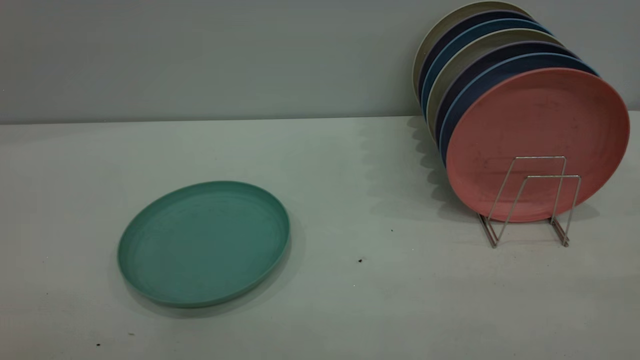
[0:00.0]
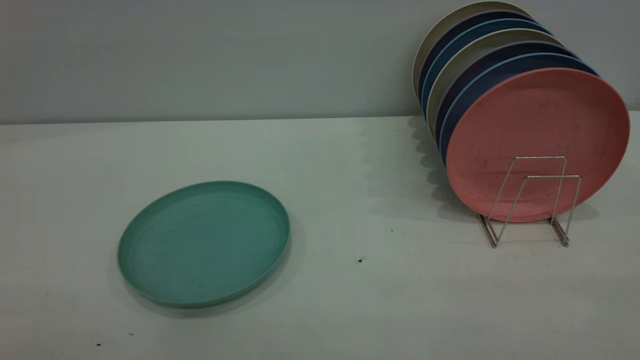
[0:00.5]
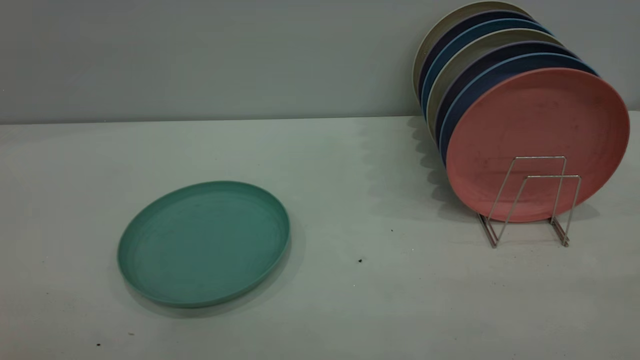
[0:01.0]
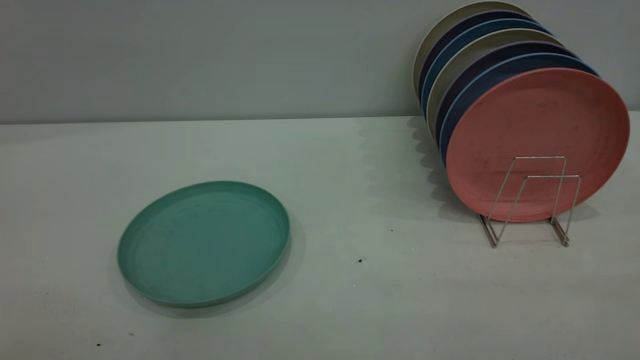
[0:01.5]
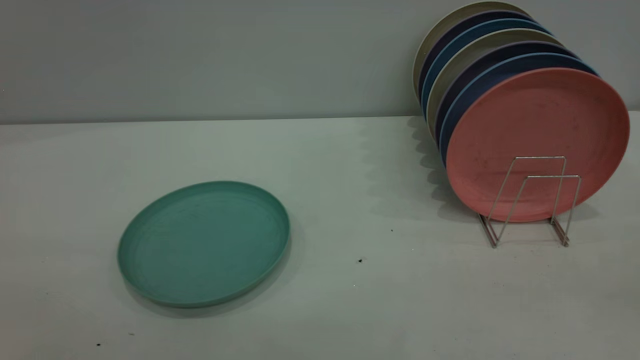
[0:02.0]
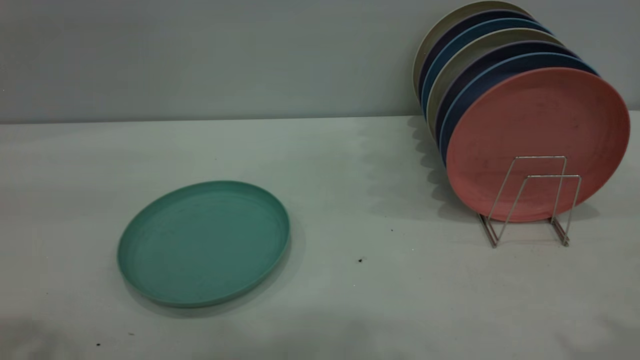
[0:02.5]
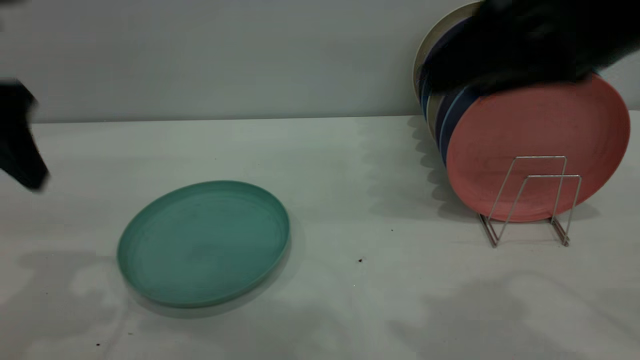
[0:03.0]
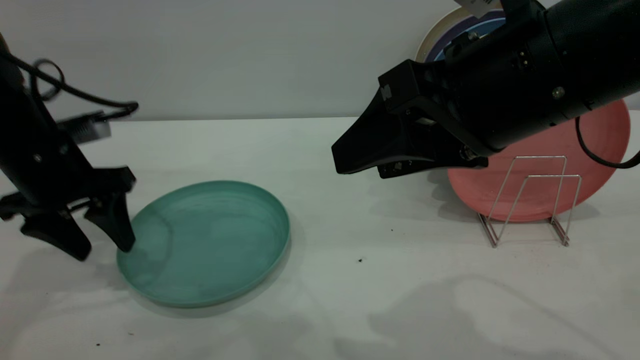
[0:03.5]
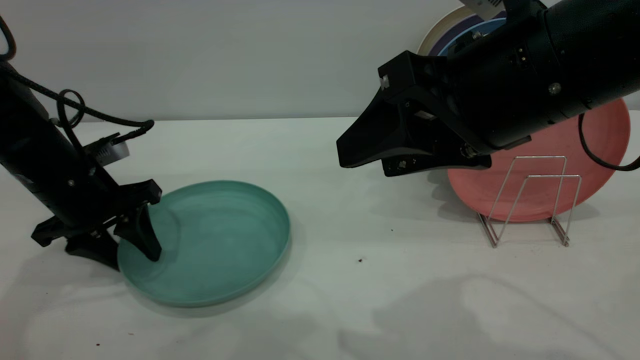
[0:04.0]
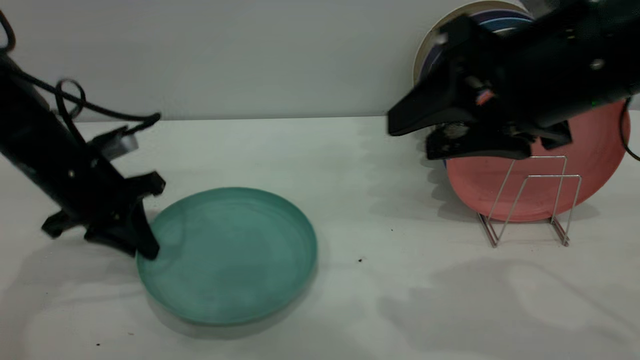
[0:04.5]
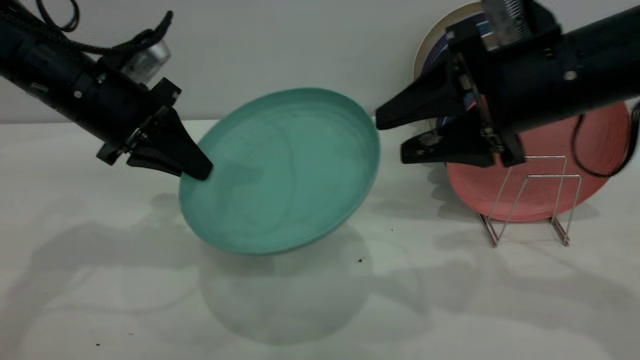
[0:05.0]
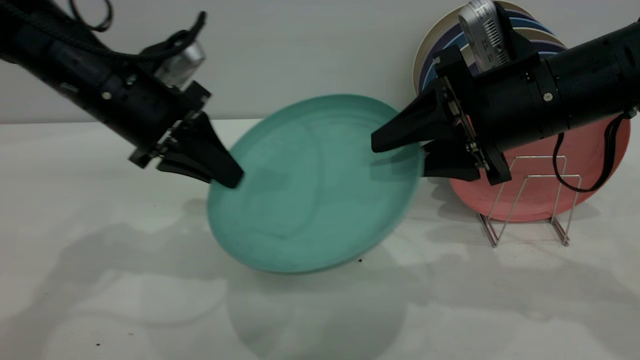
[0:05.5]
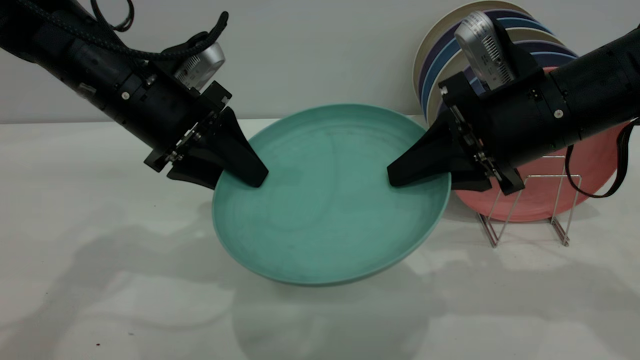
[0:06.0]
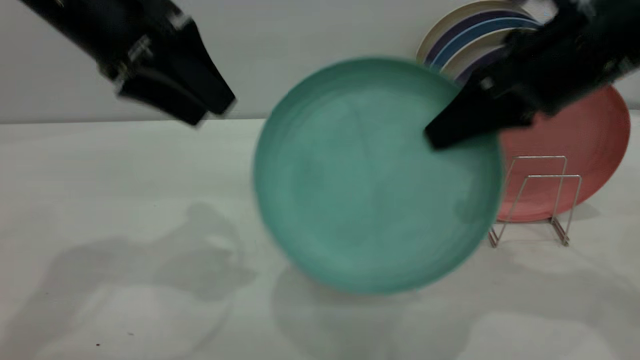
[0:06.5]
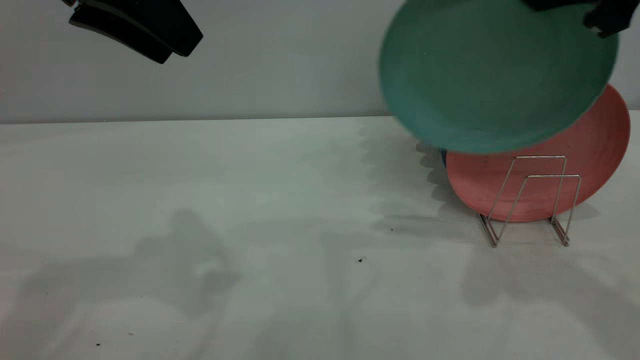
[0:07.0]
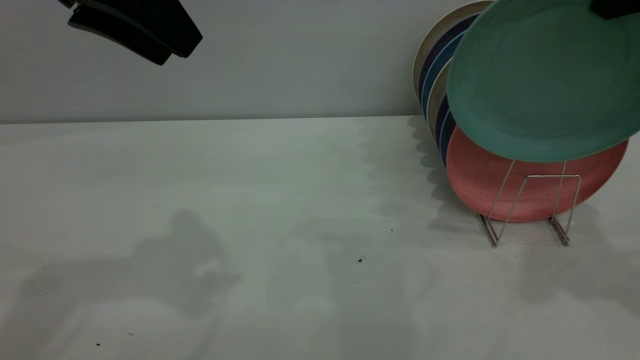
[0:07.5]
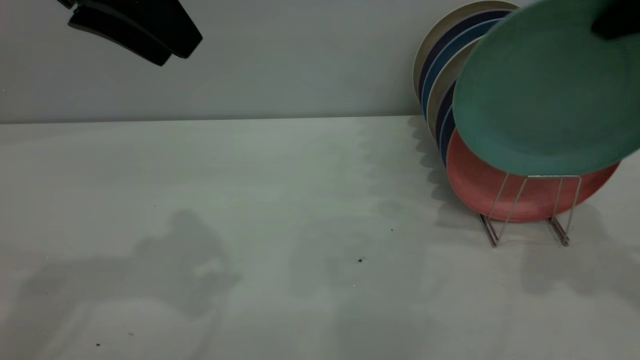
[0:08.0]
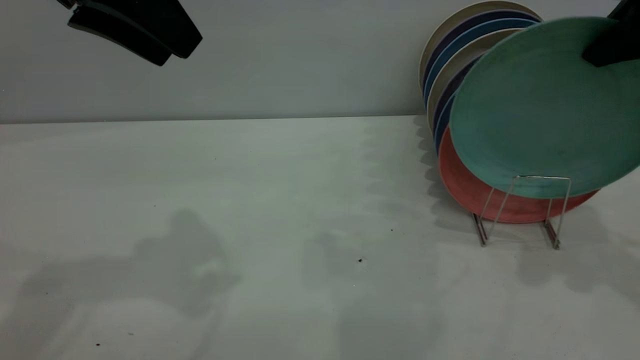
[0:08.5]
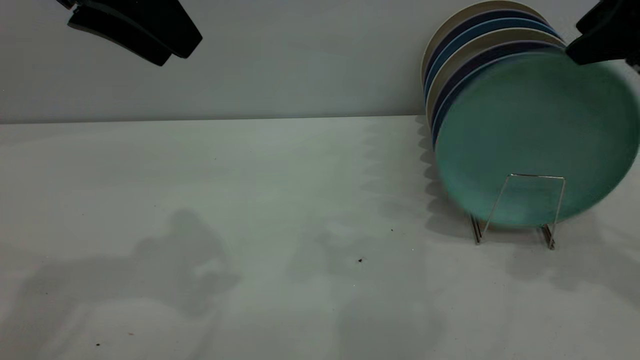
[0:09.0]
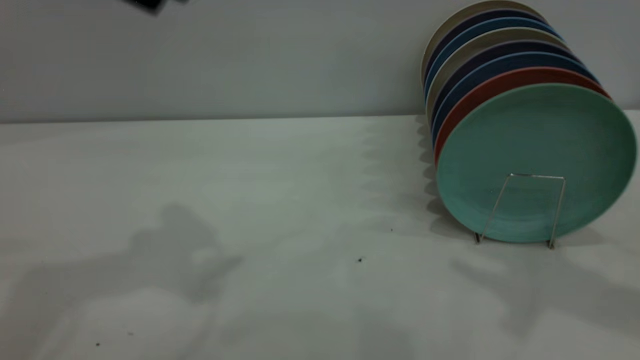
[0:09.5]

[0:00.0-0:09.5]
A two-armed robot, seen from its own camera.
Task of the whole recording: the left gripper grasp the green plate, the left gripper pass the green plate to the right gripper, and the right gripper place the green plate on the plate rack.
Step, 0:00.0 to 0:04.5: Pick up the plate with the left gripper.
Step, 0:05.0 to 0:06.5: Pass the plate from the left gripper to the right gripper.
Step, 0:07.0 to 0:09.0: Place the plate on the shelf.
0:02.0 to 0:04.0: The right gripper shifts about 30 cm forward, to the left and downward, while the left gripper moves forward and downward, roughly 50 cm.
0:04.0 to 0:05.5: The right gripper is displaced forward and downward by approximately 10 cm, and closes its fingers. The left gripper moves to the right and upward, some 10 cm, and closes its fingers.
0:05.5 to 0:07.5: The right gripper shifts about 20 cm upward and to the right, and closes, while the left gripper heads upward, covering approximately 15 cm, and opens.
0:07.5 to 0:09.5: The right gripper changes place by some 5 cm, and opens up. The left gripper goes approximately 5 cm upward.

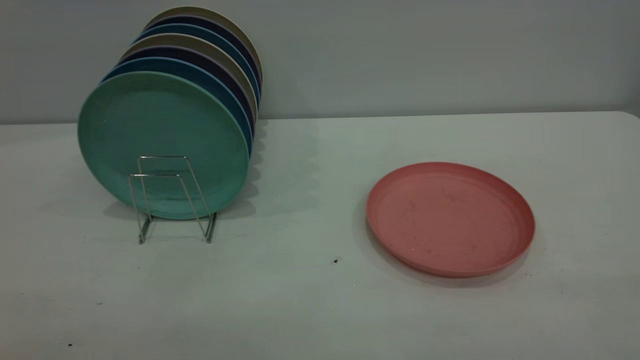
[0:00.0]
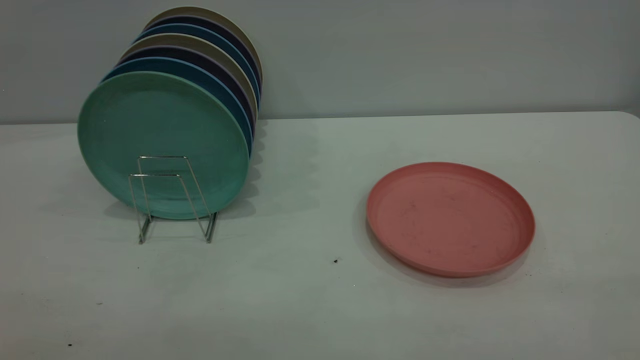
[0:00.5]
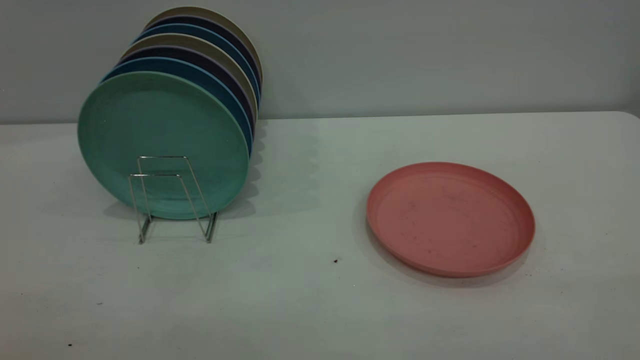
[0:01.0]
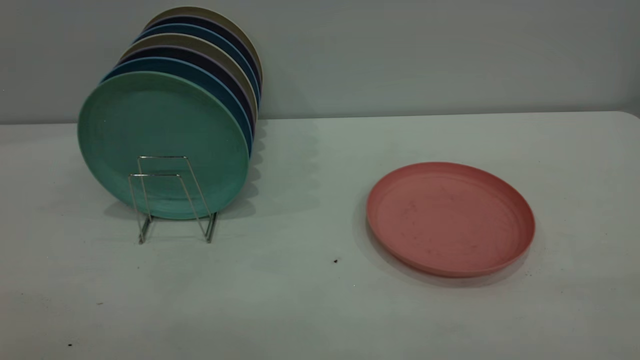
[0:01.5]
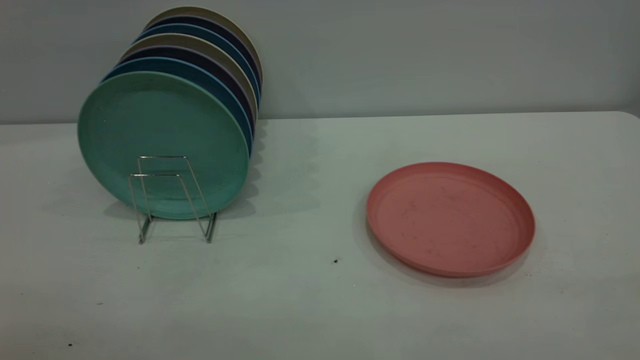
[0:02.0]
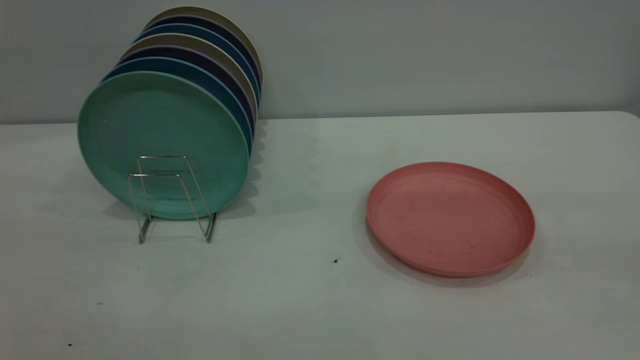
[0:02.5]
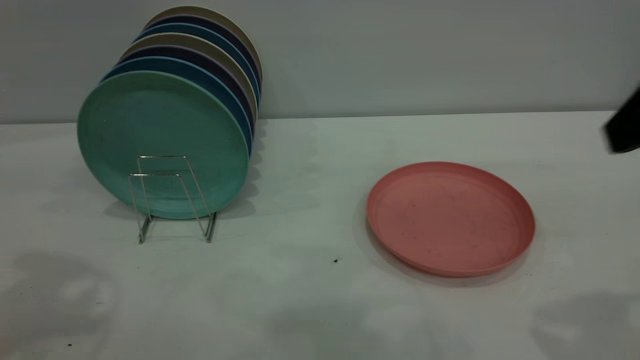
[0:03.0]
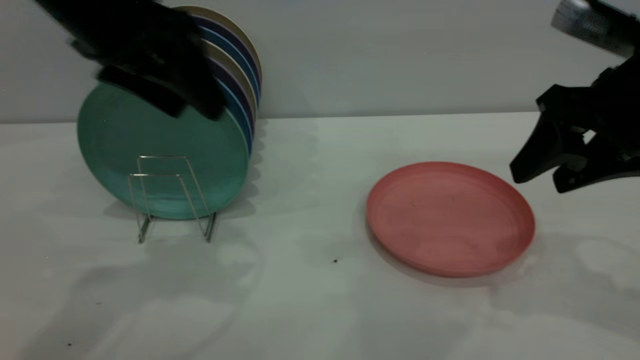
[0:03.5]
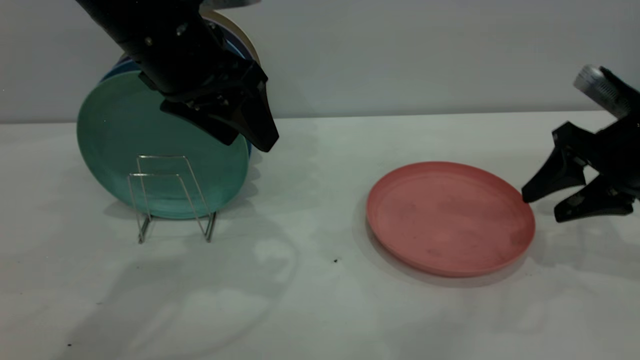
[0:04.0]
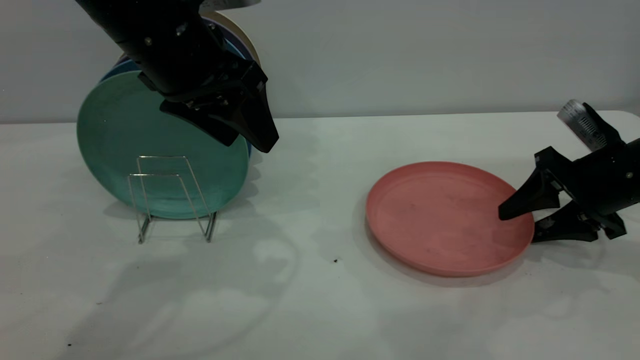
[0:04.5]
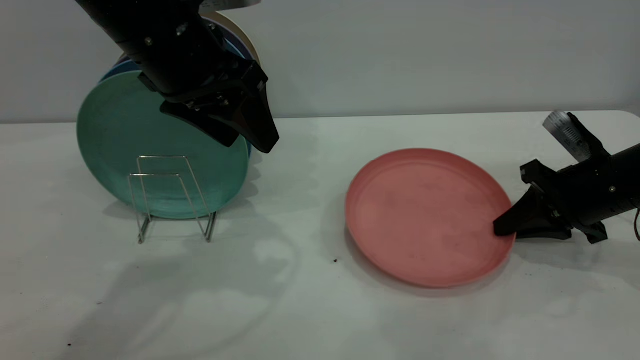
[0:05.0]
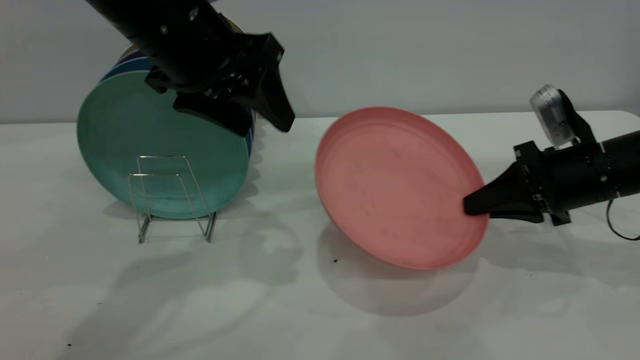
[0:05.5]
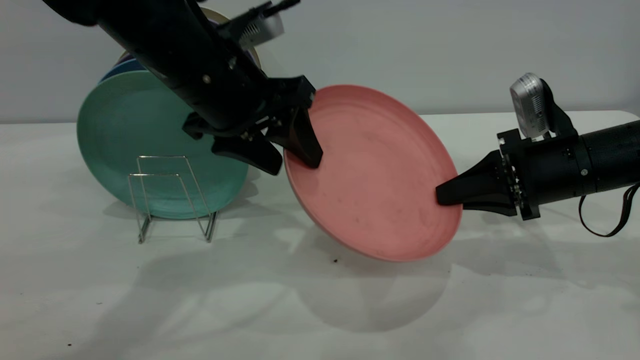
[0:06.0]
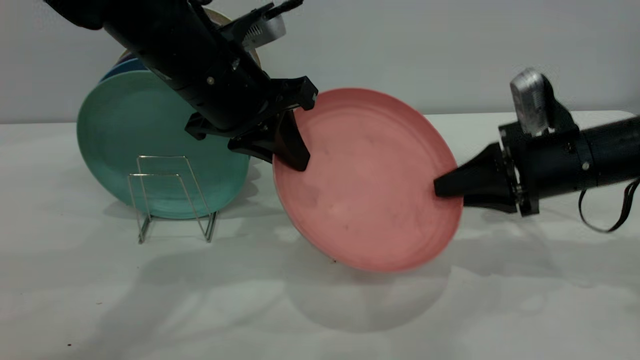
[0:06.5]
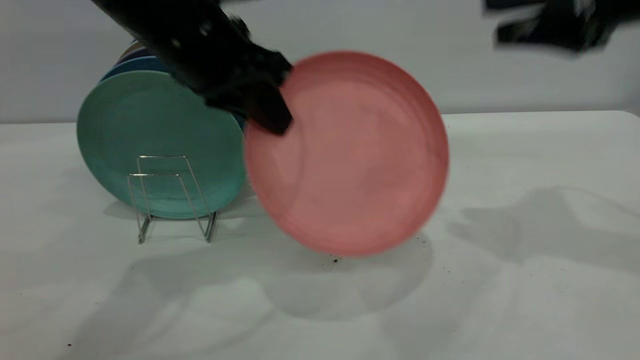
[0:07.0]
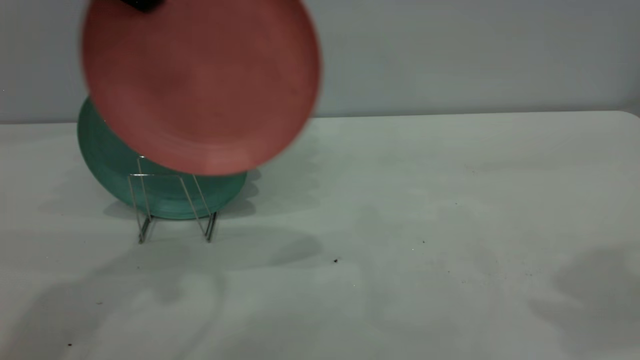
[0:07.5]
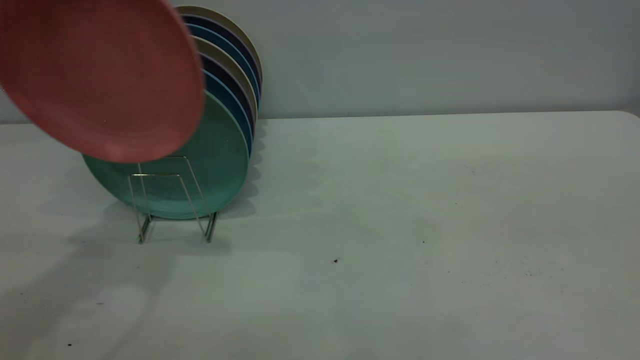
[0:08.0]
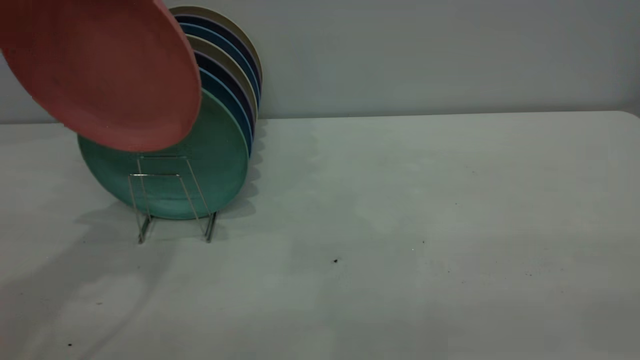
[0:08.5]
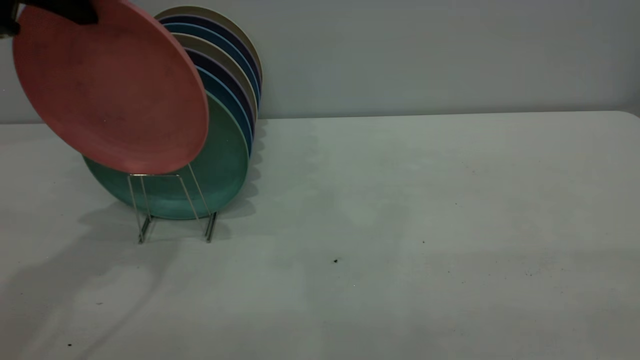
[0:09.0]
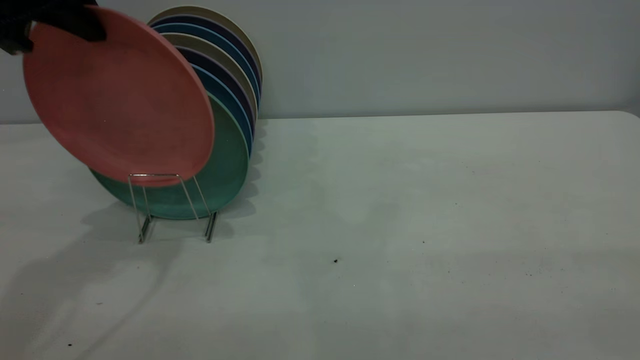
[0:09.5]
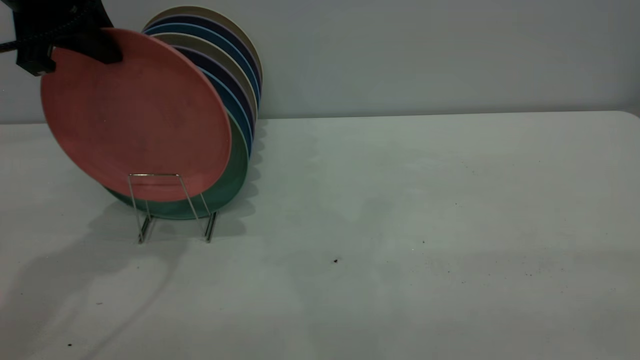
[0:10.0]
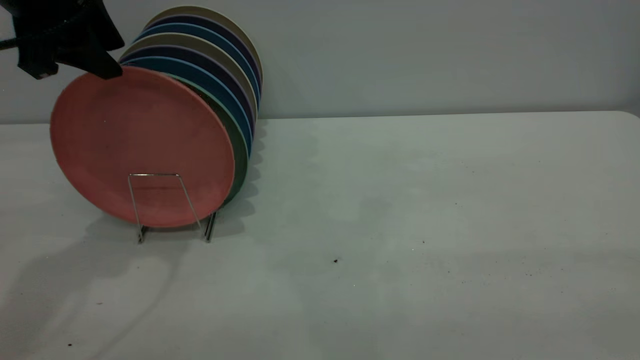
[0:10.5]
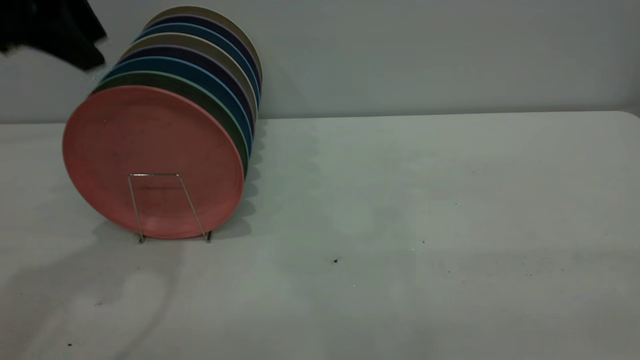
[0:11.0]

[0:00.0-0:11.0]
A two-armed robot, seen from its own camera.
Task of the whole recording: the right gripper grasp the pink plate, the right gripper pass the pink plate to the left gripper, and the left gripper place the pink plate on the plate rack.
Step, 0:00.0 to 0:05.0: Pick up the plate with the right gripper.
Step, 0:05.5 to 0:07.5: Pass the plate from the right gripper to the left gripper.
0:00.0 to 0:02.0: Neither gripper changes place.
0:02.0 to 0:03.5: Both grippers travel together forward, approximately 35 cm.
0:03.5 to 0:05.5: The right gripper travels downward and forward by about 15 cm, and closes.
0:05.5 to 0:07.5: The right gripper goes roughly 30 cm upward, and opens up. The left gripper is displaced upward and to the left by roughly 15 cm, and closes.
0:07.5 to 0:09.0: The left gripper goes about 5 cm to the left; the right gripper moves backward, approximately 25 cm.
0:09.0 to 0:11.0: The left gripper opens its fingers.
